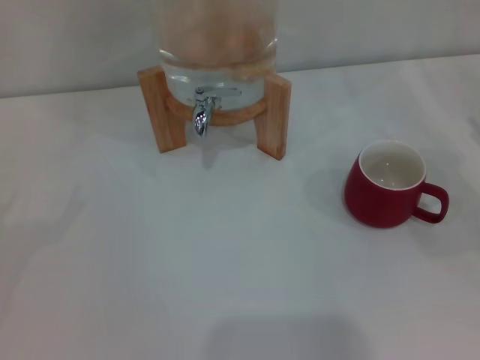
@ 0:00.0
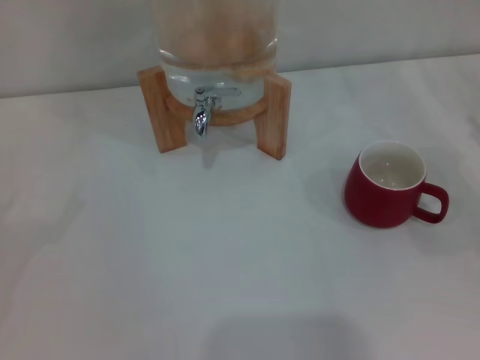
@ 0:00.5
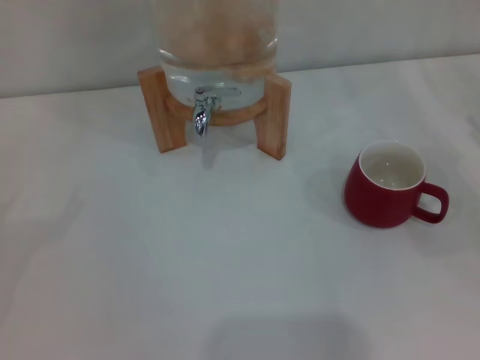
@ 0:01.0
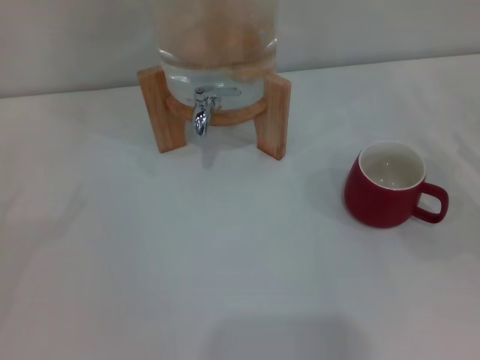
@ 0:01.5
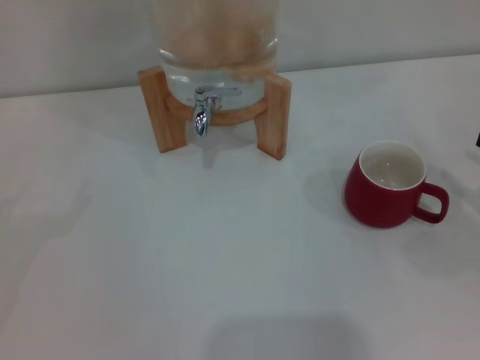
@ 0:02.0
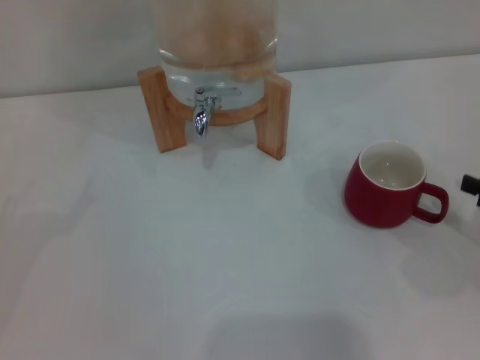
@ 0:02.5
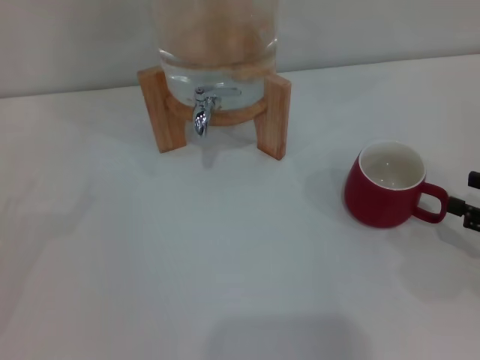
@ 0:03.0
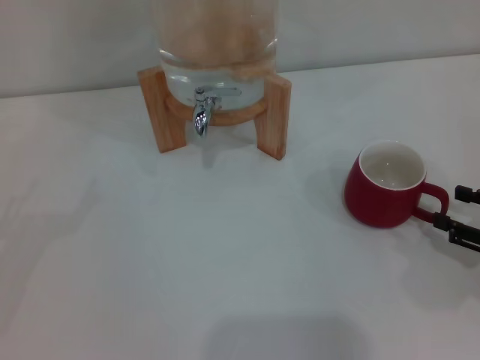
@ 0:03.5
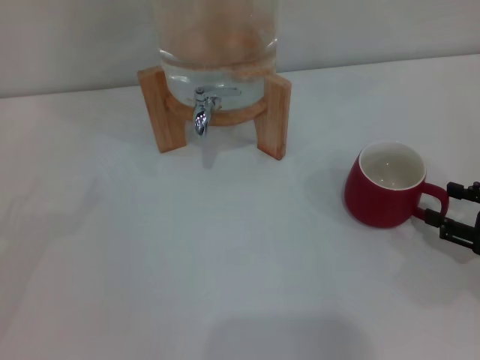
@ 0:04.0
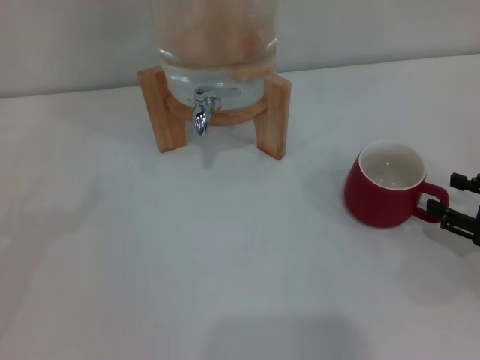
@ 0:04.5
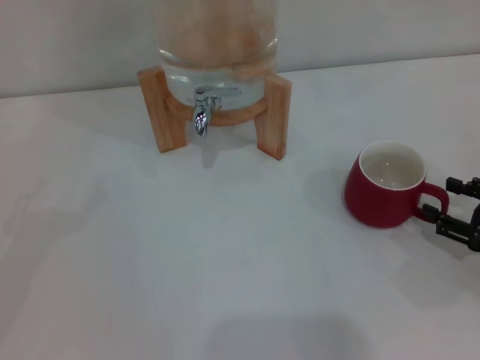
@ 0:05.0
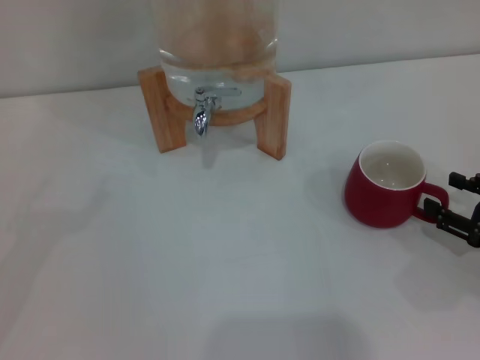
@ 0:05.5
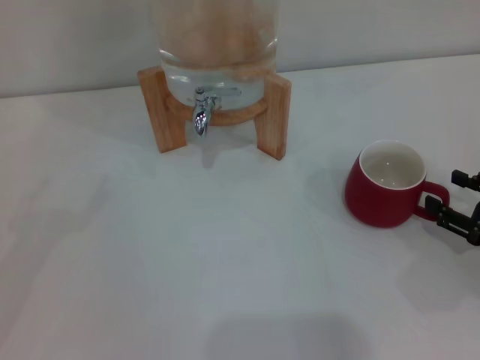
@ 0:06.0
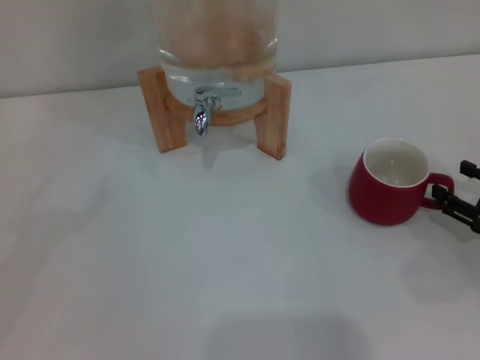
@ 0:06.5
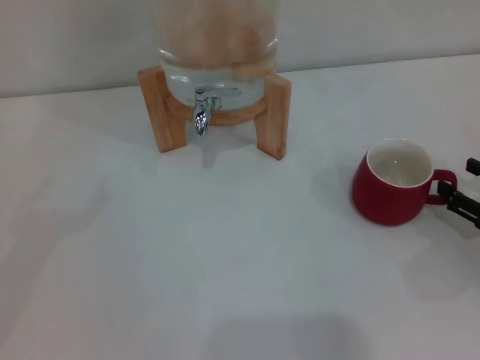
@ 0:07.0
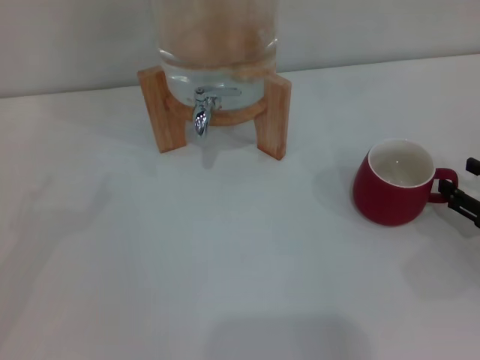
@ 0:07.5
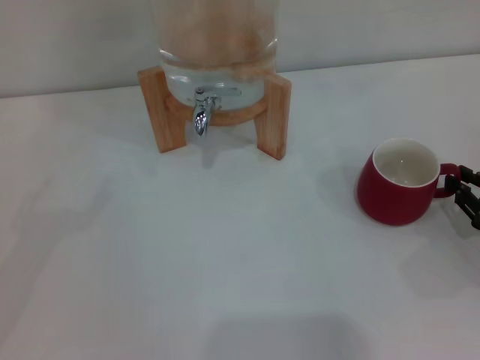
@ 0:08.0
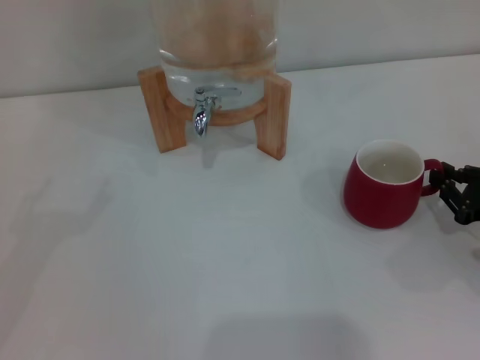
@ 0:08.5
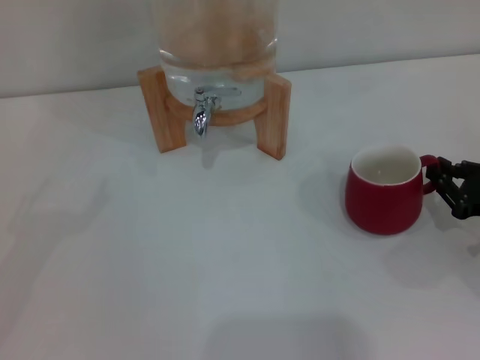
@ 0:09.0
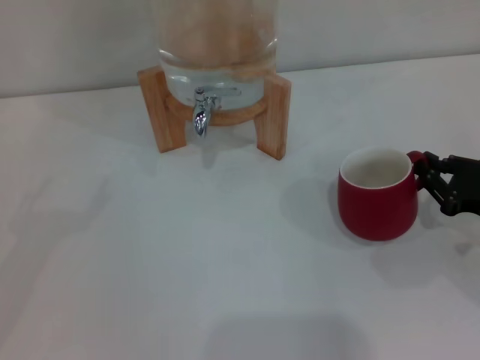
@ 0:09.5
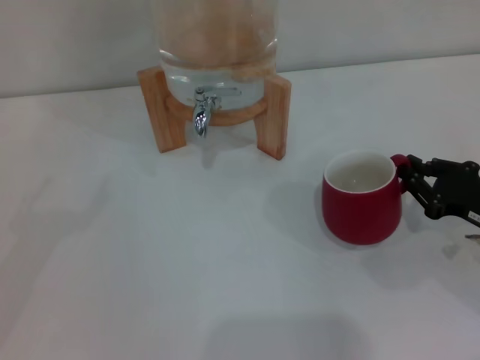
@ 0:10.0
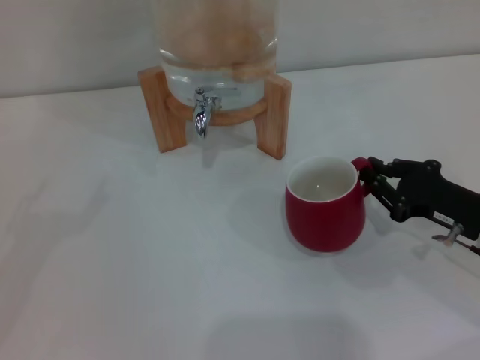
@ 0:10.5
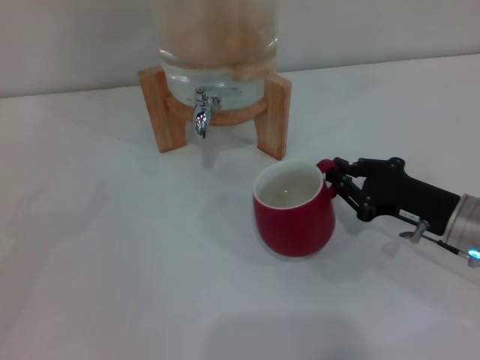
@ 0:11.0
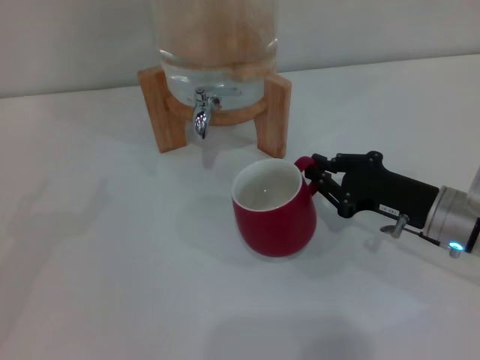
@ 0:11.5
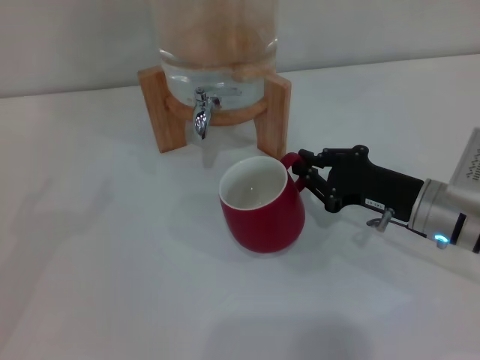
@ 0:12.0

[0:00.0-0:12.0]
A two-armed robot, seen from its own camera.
Task of the whole recording: the right gripper pick up the red cup and place it horizontally under the faucet, the left gripper turn on the faucet to fill the cup, and then turn off the faucet.
0:02.0 to 0:04.0: The right gripper changes place by some 5 cm.
0:04.0 to 0:06.0: The grippers move only a little.
0:06.0 to 0:08.0: The right gripper closes its fingers.
0:08.0 to 0:10.0: The grippers move only a little.
0:10.0 to 0:12.0: The right gripper shifts approximately 10 cm to the left and forward.

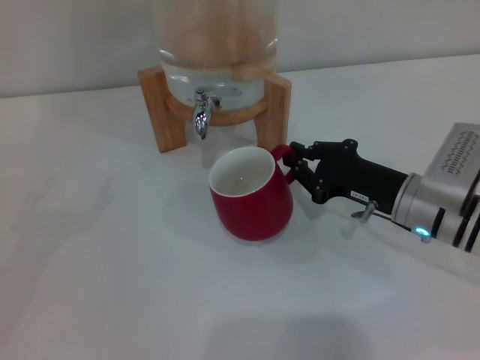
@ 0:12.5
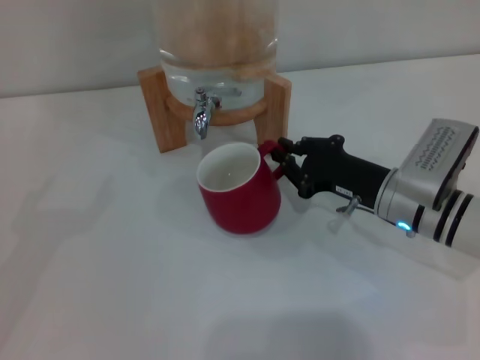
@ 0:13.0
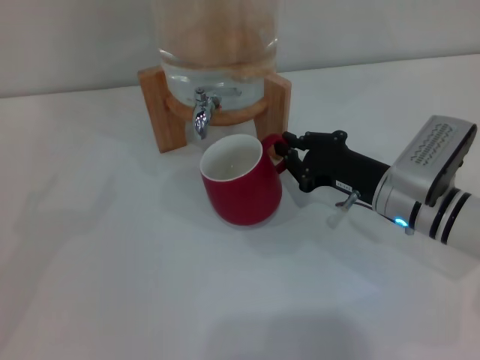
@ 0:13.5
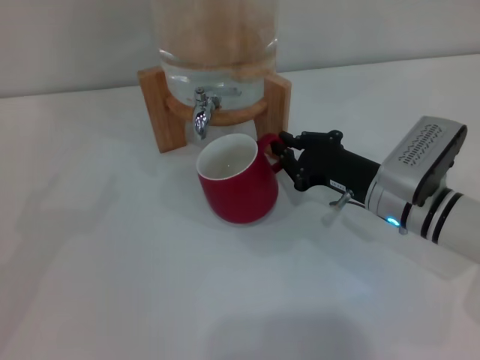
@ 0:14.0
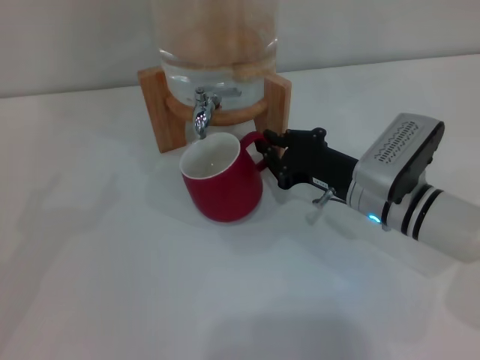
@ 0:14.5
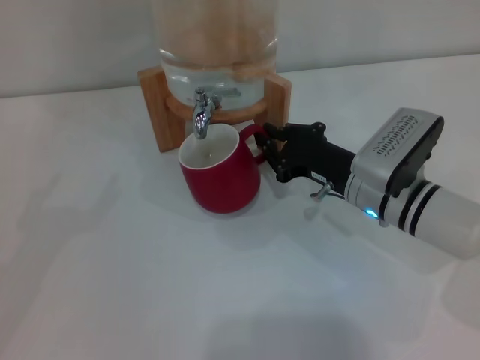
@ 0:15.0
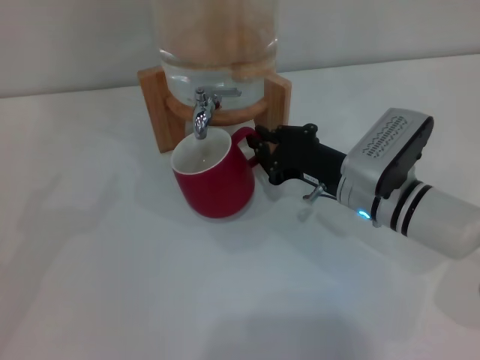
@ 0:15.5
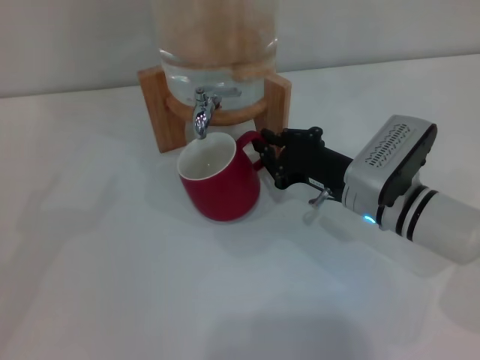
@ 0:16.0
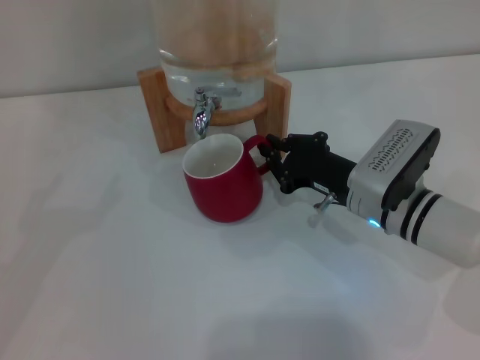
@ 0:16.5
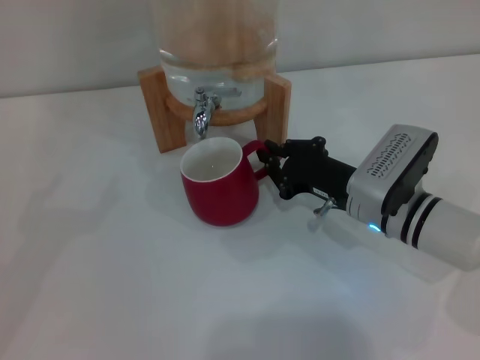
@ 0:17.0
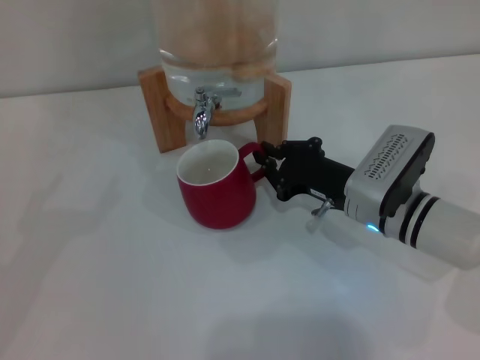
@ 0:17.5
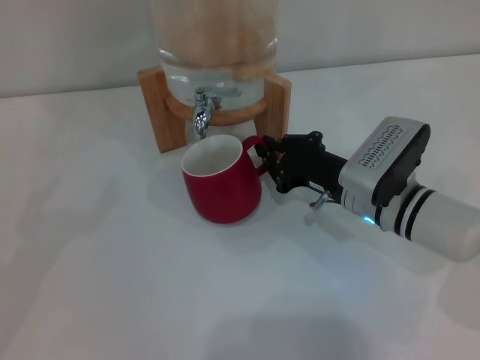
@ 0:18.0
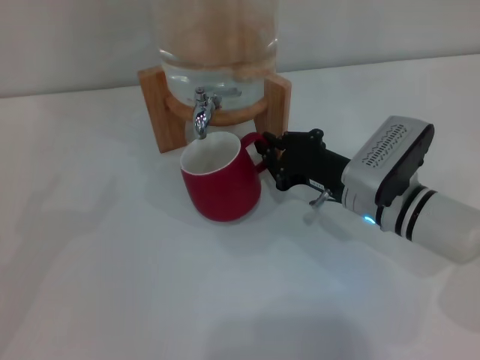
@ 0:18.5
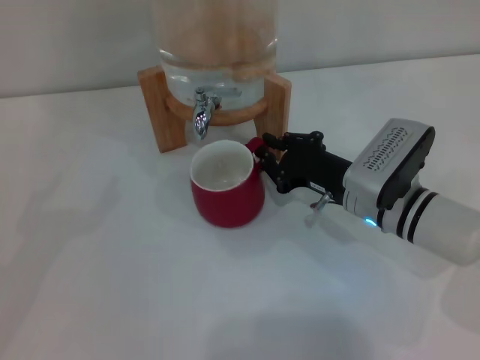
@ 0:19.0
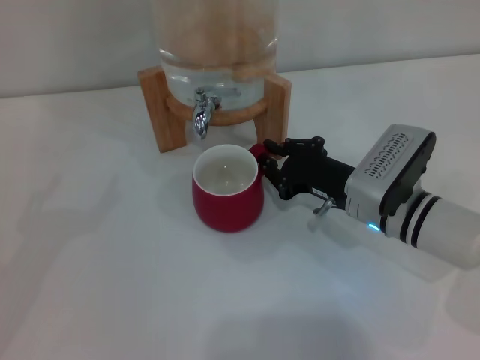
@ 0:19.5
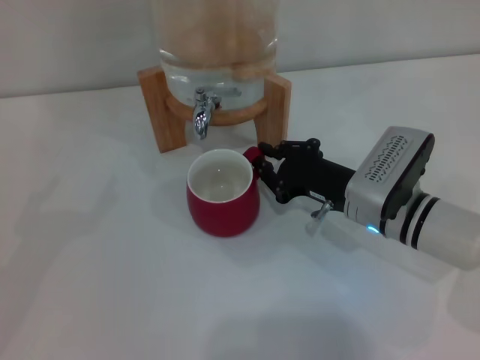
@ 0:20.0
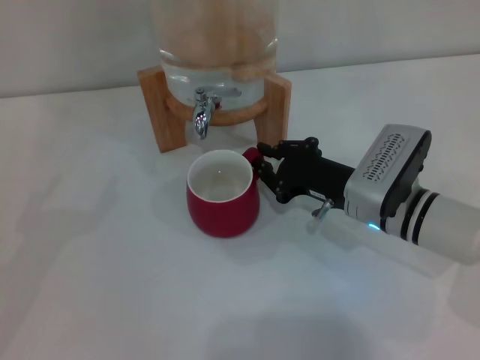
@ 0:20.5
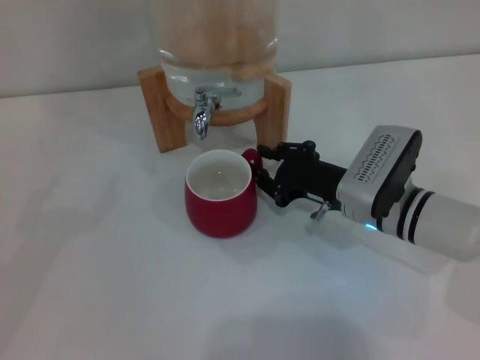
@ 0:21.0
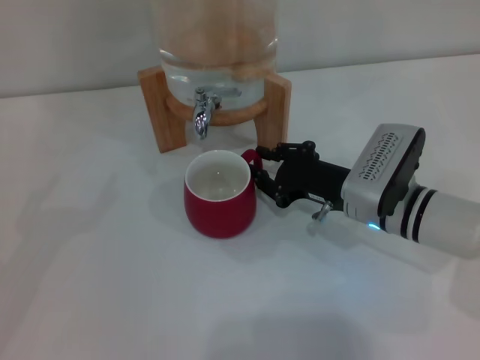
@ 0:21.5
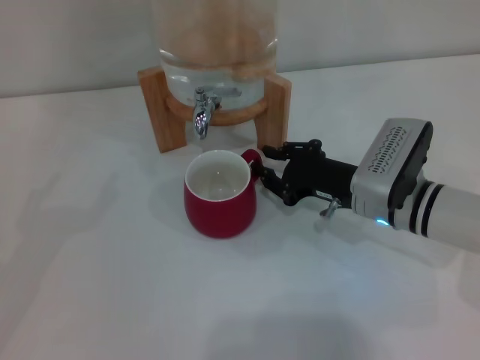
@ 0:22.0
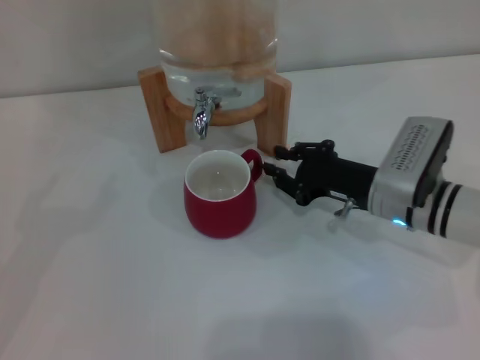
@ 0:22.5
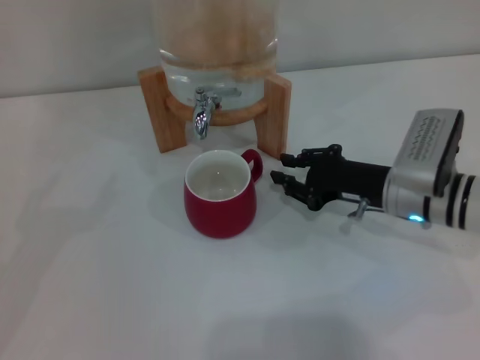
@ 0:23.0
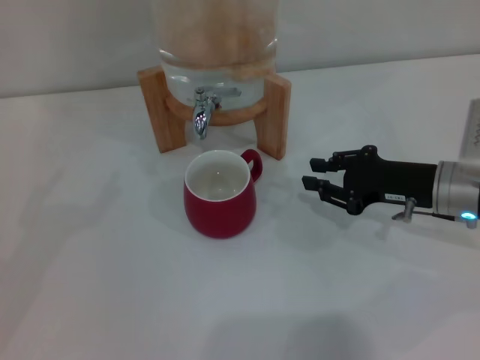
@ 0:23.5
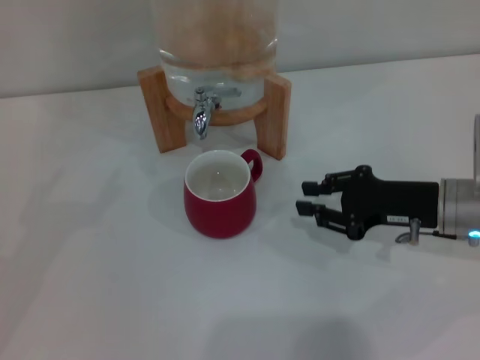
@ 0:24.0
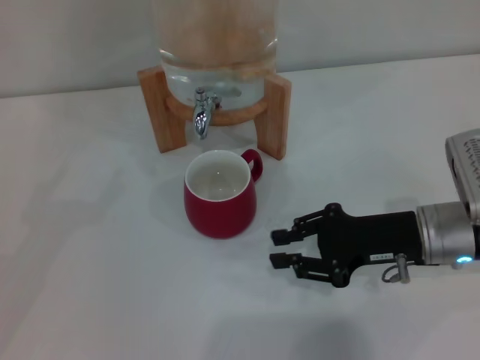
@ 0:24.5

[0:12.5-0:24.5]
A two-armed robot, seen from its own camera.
Task of the whole recording: the right gripper pick up the red cup and place it horizontally under the faucet, the left gripper turn on the faucet to fill the cup, and then turn off the faucet.
0:12.5 to 0:14.5: The grippers make only small movements.
0:14.5 to 0:18.5: Both grippers stay about where they are.
0:18.5 to 0:22.5: The grippers move only a little.
0:22.5 to 0:24.5: The right gripper moves about 5 cm.

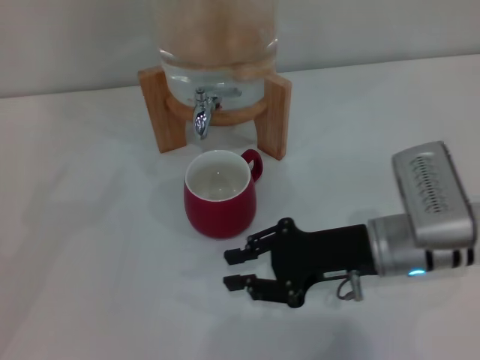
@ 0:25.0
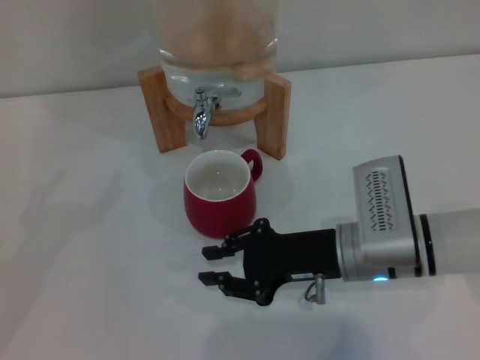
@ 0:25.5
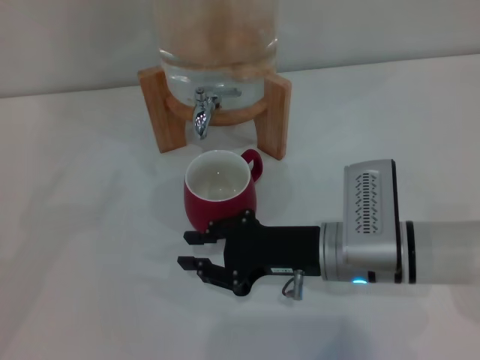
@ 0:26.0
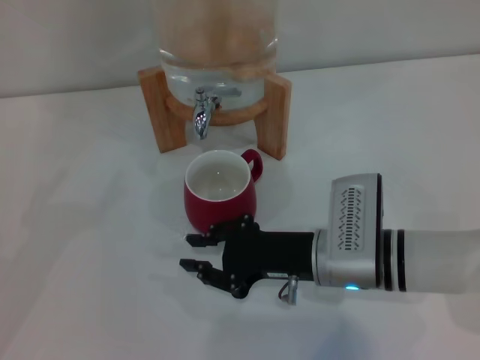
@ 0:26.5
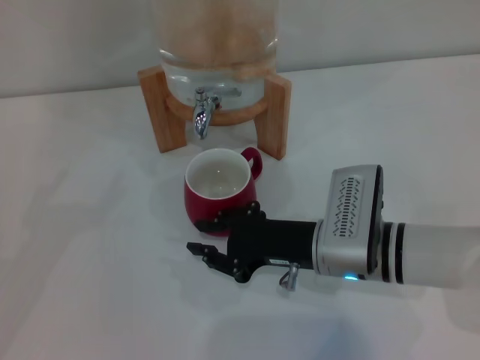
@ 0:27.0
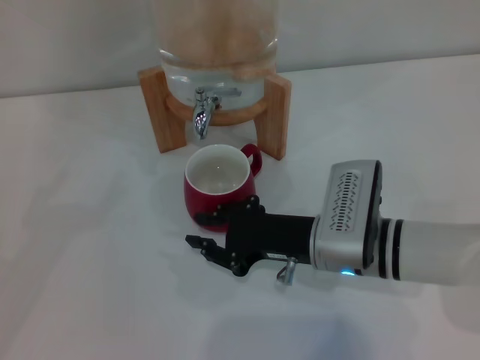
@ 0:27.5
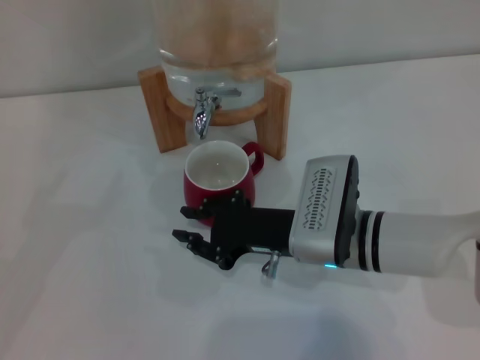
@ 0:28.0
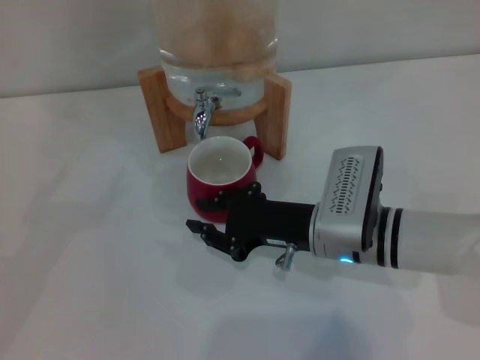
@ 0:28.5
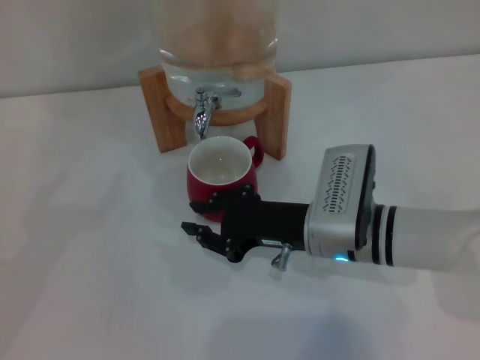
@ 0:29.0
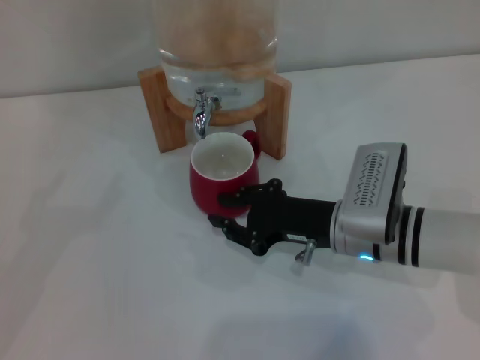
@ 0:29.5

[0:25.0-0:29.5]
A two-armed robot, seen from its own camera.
Task of the whole recording: the right gripper pick up the red cup and place it horizontally under the faucet, the left gripper turn on the faucet to fill the cup, and then turn off the faucet.
0:25.0 to 0:27.0: The right gripper is displaced to the left by about 5 cm.
0:27.0 to 0:29.5: The grippers make only small movements.
